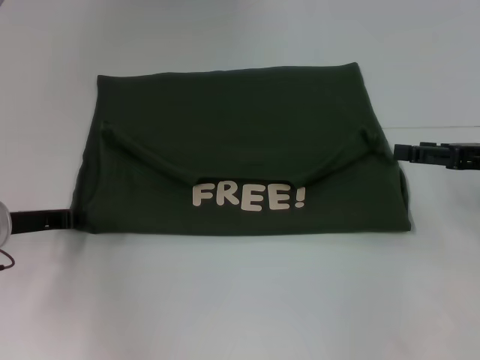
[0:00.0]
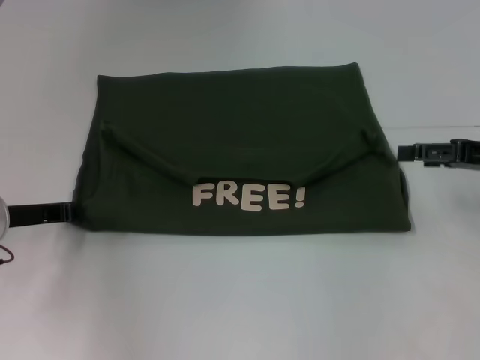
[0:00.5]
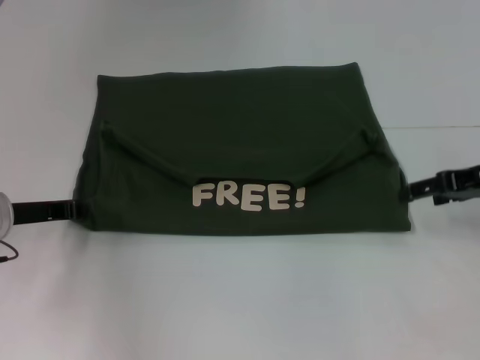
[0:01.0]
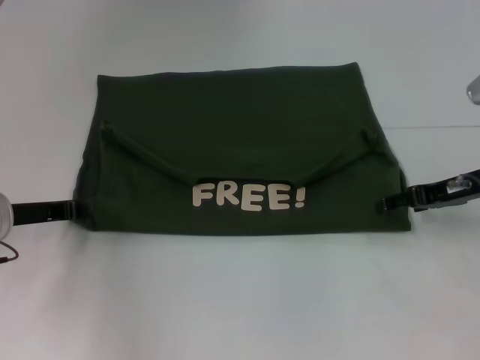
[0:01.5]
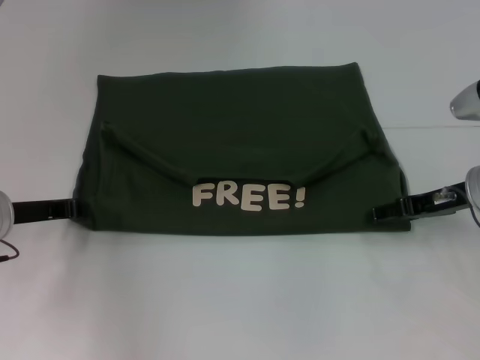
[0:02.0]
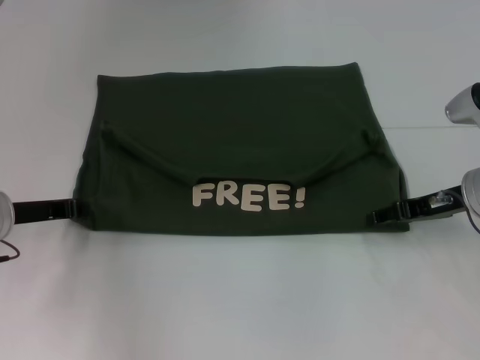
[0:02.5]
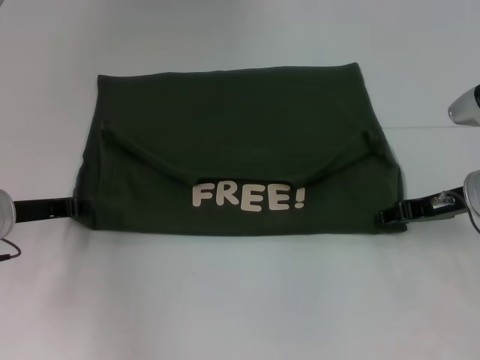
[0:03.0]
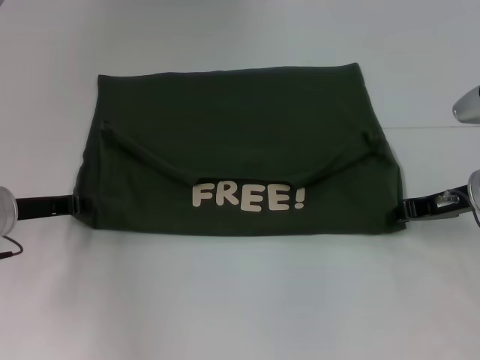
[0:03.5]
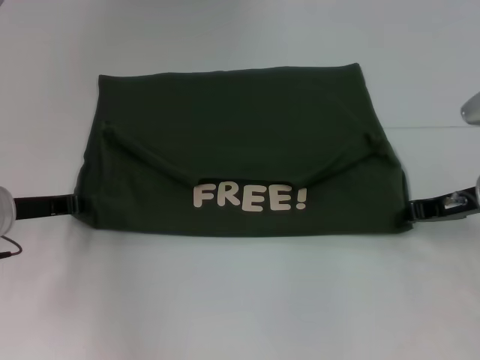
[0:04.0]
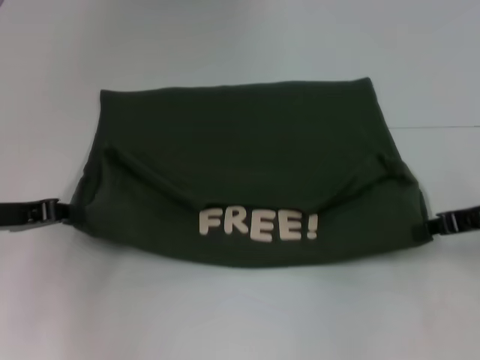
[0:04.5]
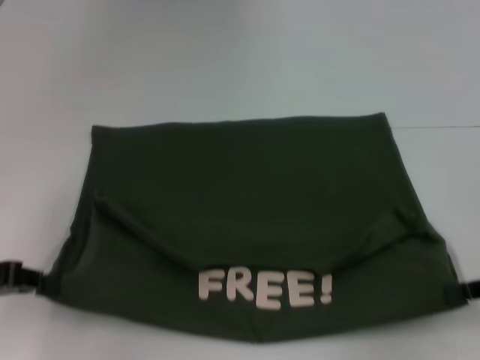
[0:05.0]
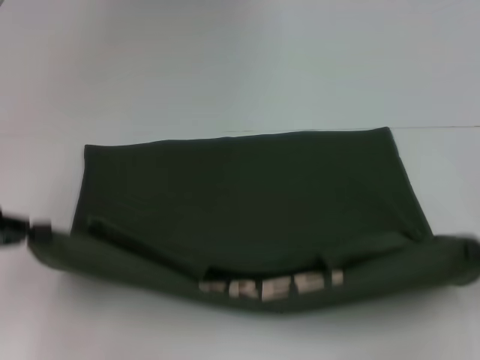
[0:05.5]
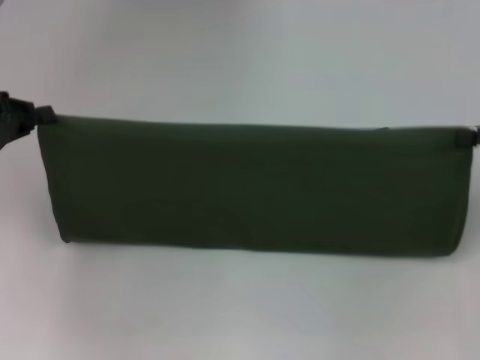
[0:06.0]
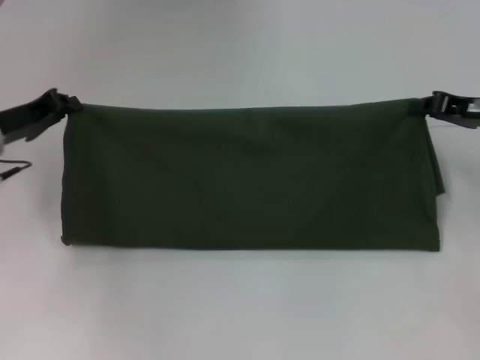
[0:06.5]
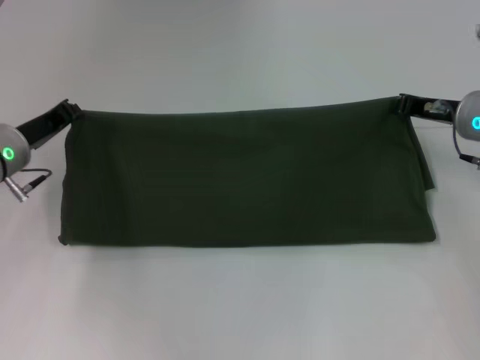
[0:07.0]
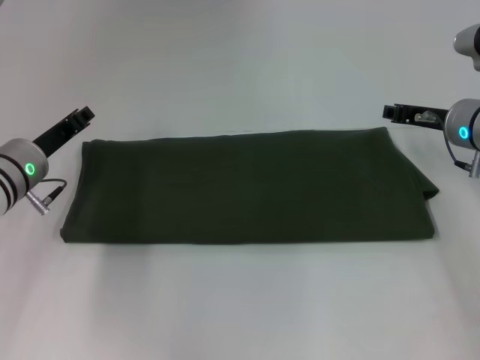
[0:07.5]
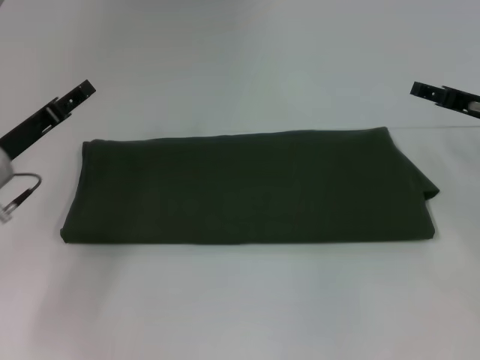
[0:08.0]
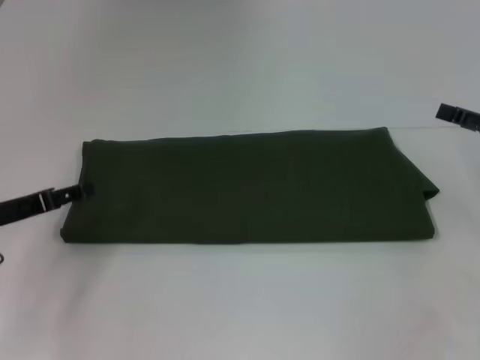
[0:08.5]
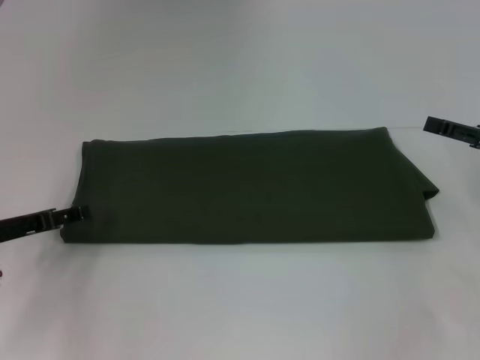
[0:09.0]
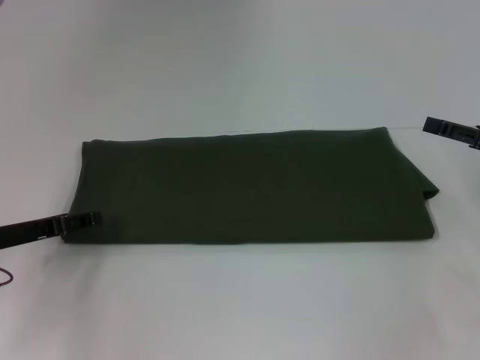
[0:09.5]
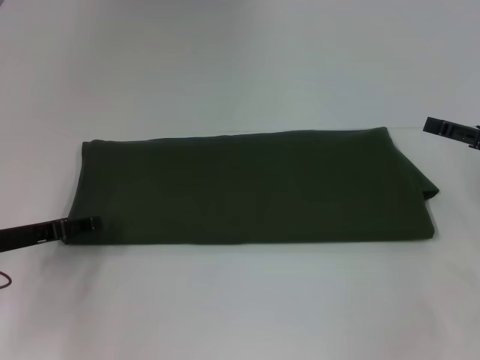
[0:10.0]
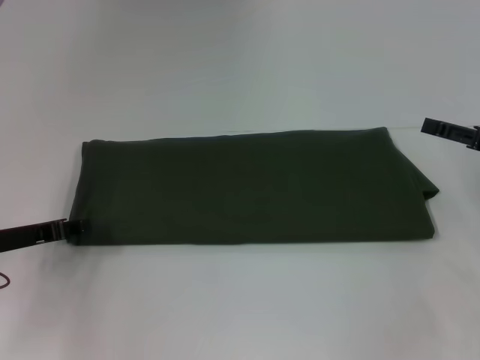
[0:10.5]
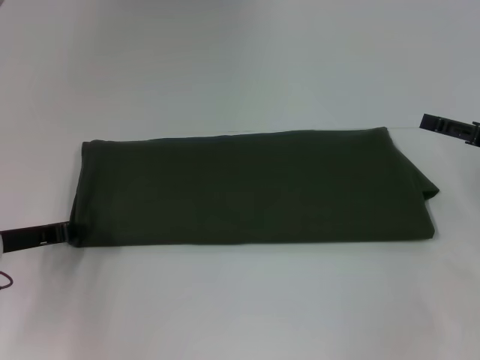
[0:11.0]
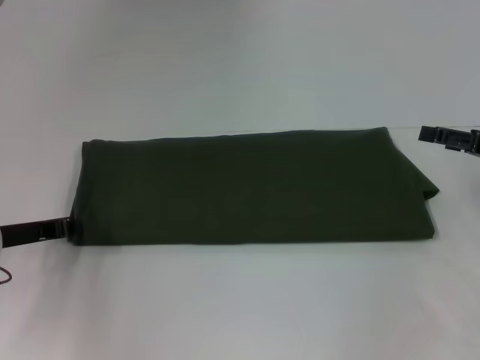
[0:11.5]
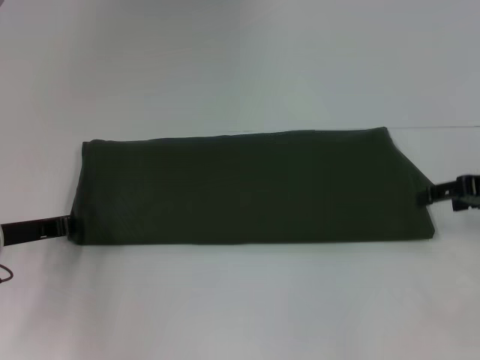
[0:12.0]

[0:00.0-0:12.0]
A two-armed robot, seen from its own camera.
Step, 0:00.0 to 0:05.0: Pull the clothes with your left hand.
Step, 0:00.0 to 0:05.0: Pull the clothes with your right hand.
Step, 0:05.5 to 0:07.5: Fold the clothes with your right hand.
0:00.0 to 0:02.0: The right gripper goes approximately 5 cm to the left.
0:02.0 to 0:04.0: The right gripper closes its fingers.
0:04.0 to 0:06.0: The right gripper heads to the right and upward, covering roughly 10 cm, and goes backward and returns, some 10 cm each way. Meanwhile the left gripper shifts about 10 cm upward and to the left.
0:06.0 to 0:08.0: The right gripper goes roughly 10 cm to the left and forward, and opens its fingers. Meanwhile the left gripper is displaced downward and to the right by some 10 cm, and opens its fingers.
0:08.0 to 0:10.0: The left gripper moves some 5 cm. Meanwhile the right gripper heads backward, covering approximately 5 cm.
0:10.0 to 0:12.0: The left gripper closes up.

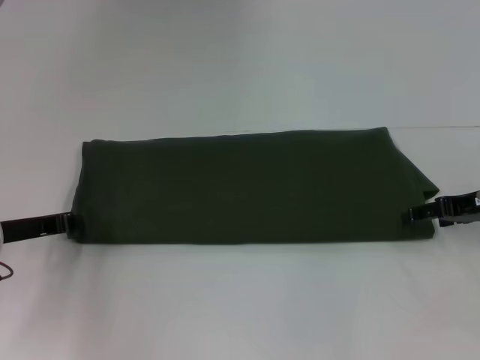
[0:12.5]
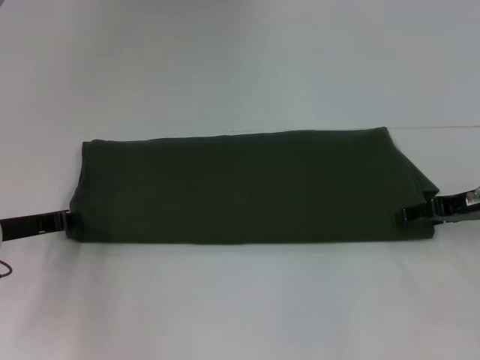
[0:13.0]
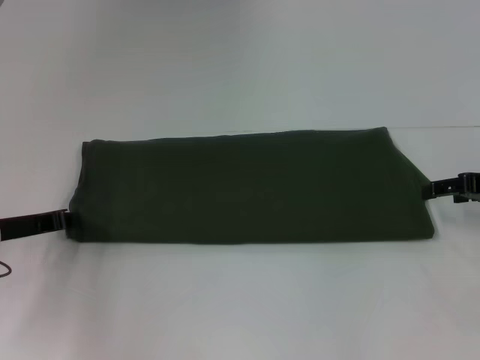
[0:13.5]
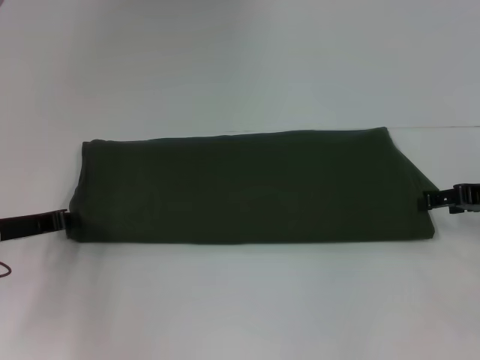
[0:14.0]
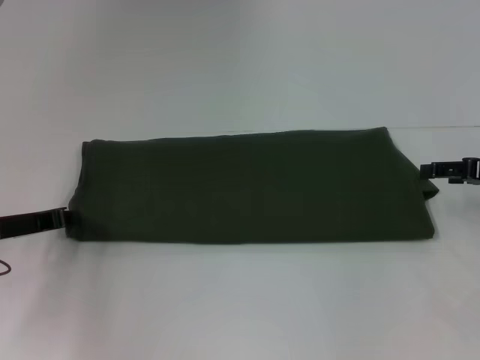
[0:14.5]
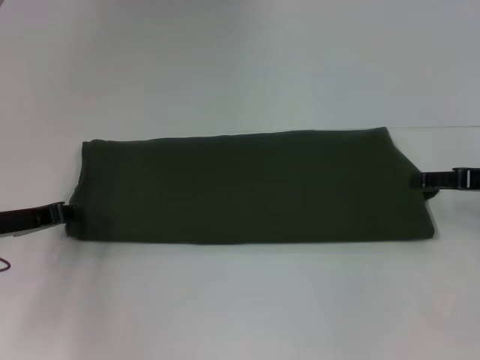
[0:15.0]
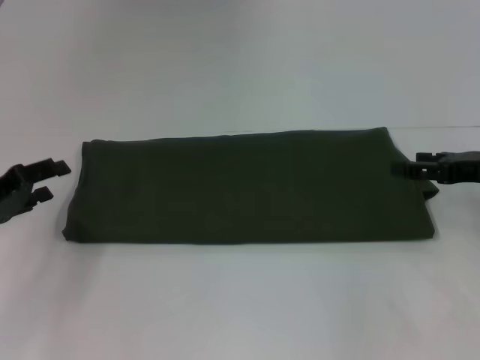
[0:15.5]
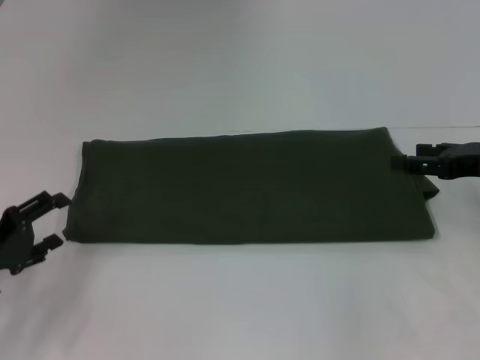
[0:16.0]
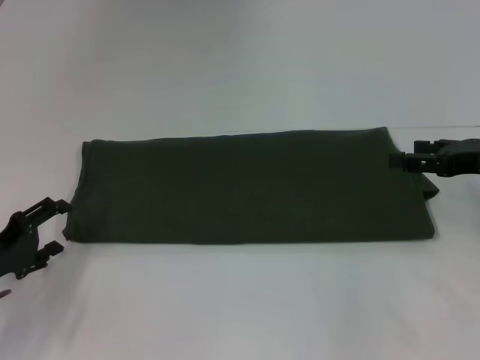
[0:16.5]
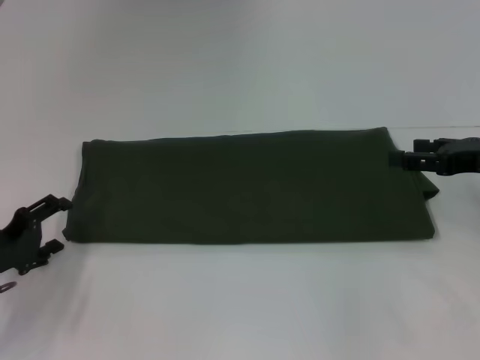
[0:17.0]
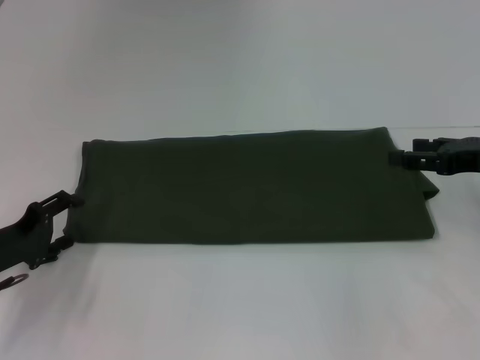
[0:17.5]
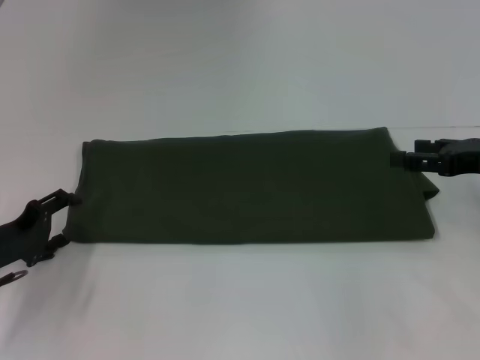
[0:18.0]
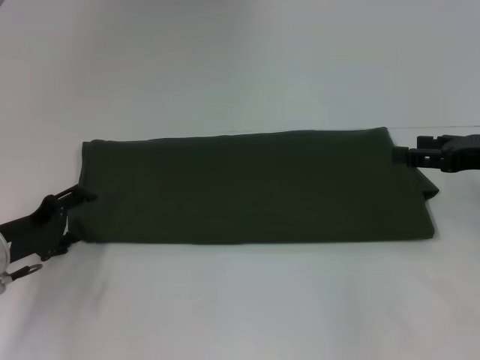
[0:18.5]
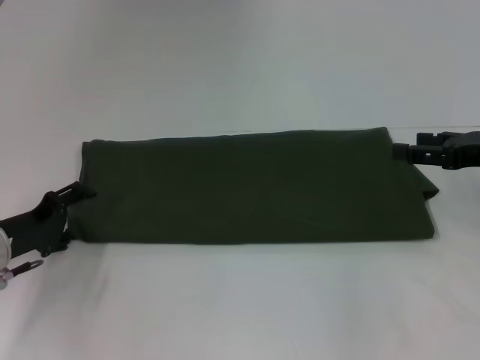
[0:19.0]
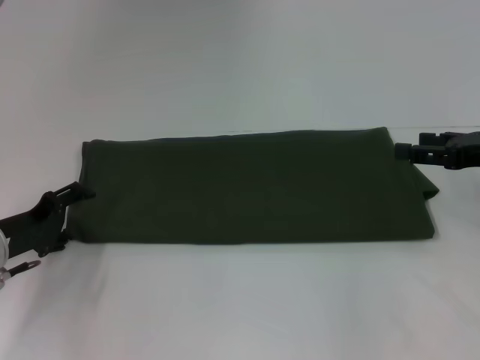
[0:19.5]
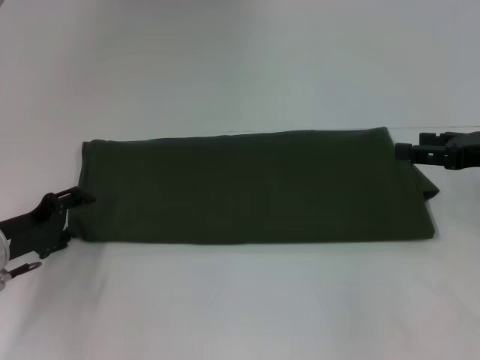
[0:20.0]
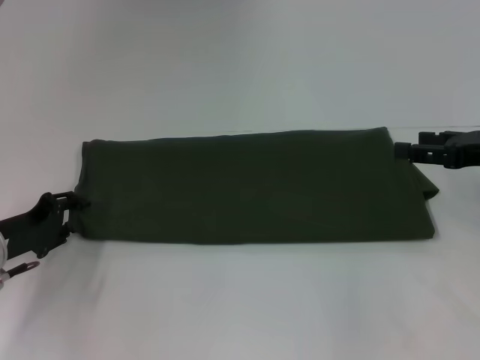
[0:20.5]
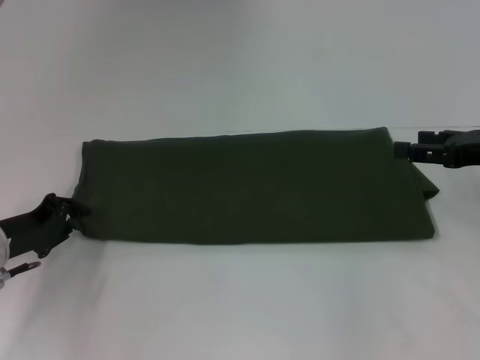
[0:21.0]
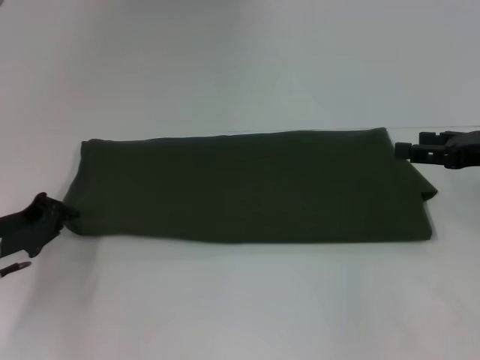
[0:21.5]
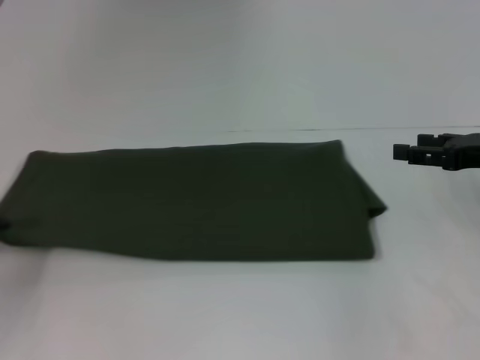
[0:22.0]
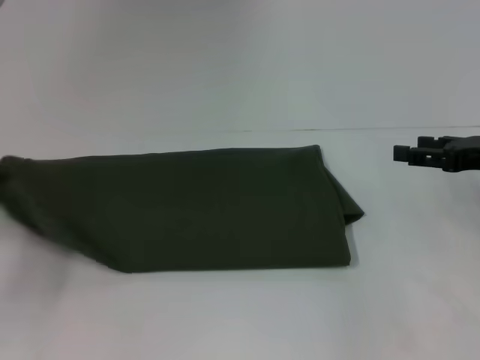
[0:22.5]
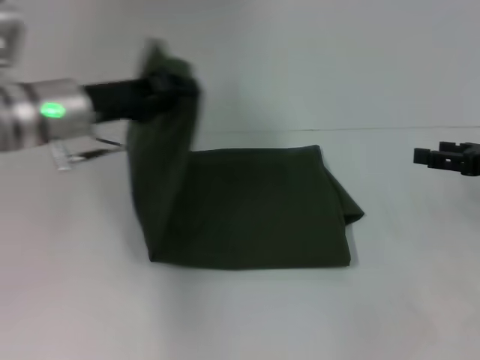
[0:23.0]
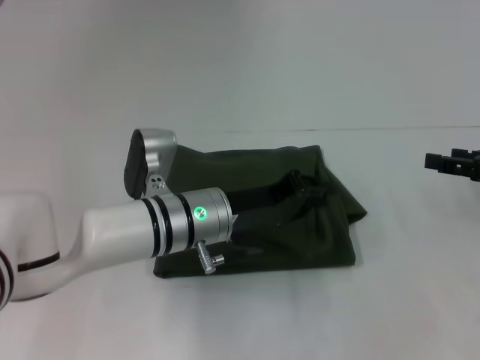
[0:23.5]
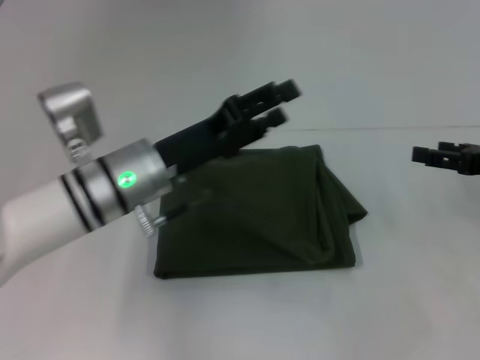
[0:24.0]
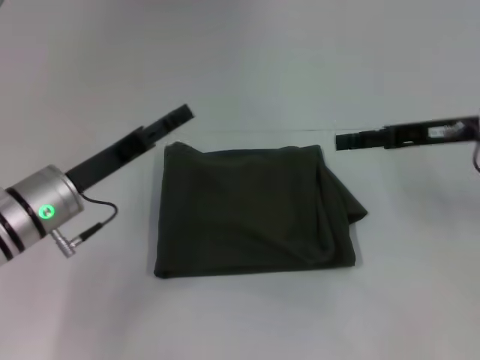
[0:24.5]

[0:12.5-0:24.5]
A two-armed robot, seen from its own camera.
Step, 0:12.5 to 0:24.0: Fold the clothes with your left hand.
0:12.5 to 0:14.5: The grippers move only a little.
0:14.5 to 0:16.5: The left gripper is displaced backward by approximately 5 cm, and opens.
0:16.5 to 0:18.5: There are only small adjustments of the grippers.
0:18.5 to 0:20.5: The left gripper closes up.
0:20.5 to 0:22.5: The left gripper is displaced to the left and upward by approximately 10 cm, and closes.
0:22.5 to 0:24.5: The left gripper is displaced to the right by approximately 15 cm, and opens its fingers. The right gripper goes approximately 5 cm to the left.

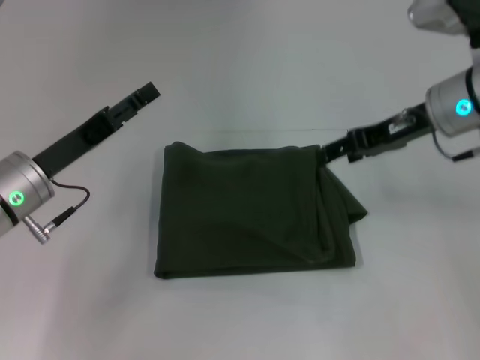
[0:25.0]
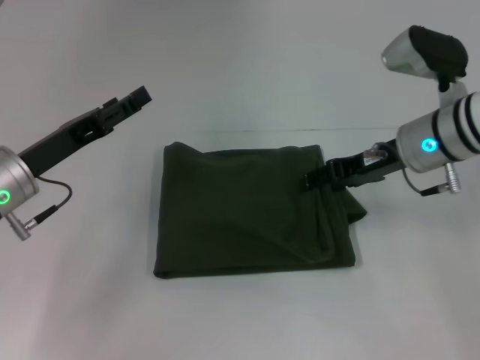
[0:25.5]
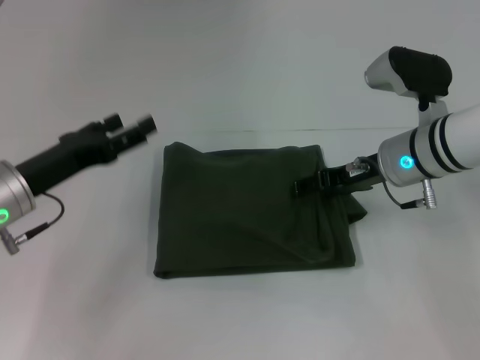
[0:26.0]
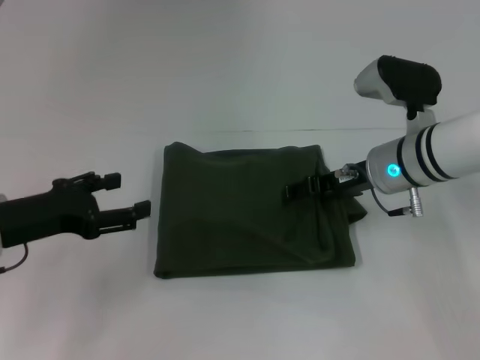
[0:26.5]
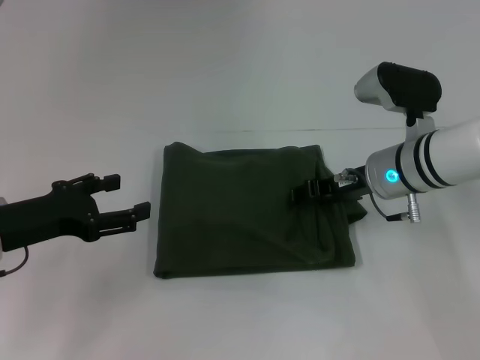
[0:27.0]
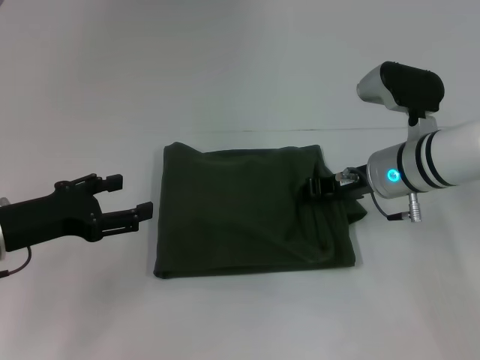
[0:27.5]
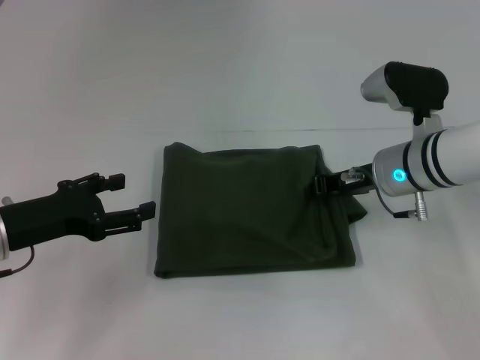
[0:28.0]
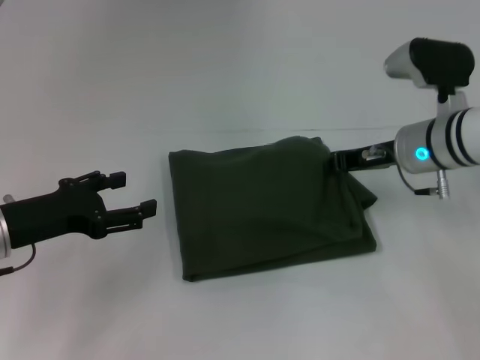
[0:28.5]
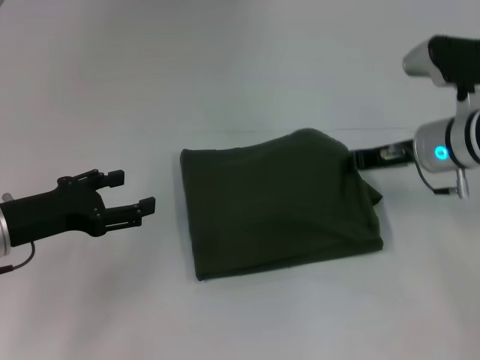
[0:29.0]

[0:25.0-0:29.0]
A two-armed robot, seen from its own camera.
0:25.0 to 0:27.0: The left gripper ends up about 5 cm from where it was. Meanwhile the right gripper heads downward, covering approximately 10 cm.
0:27.0 to 0:29.0: The right gripper ends up about 5 cm from where it was, and closes up.
